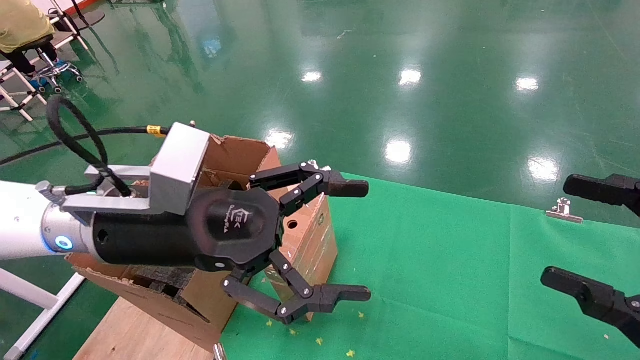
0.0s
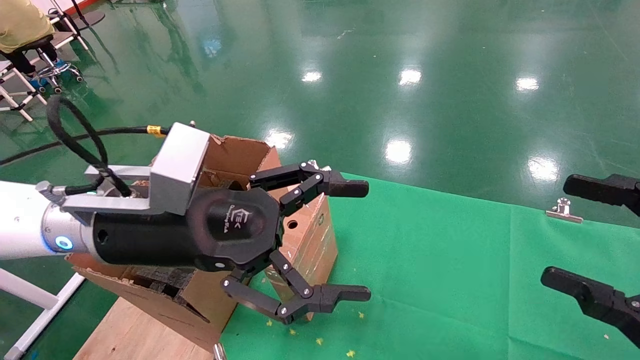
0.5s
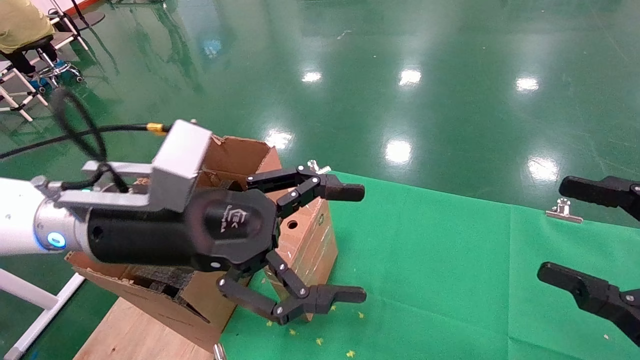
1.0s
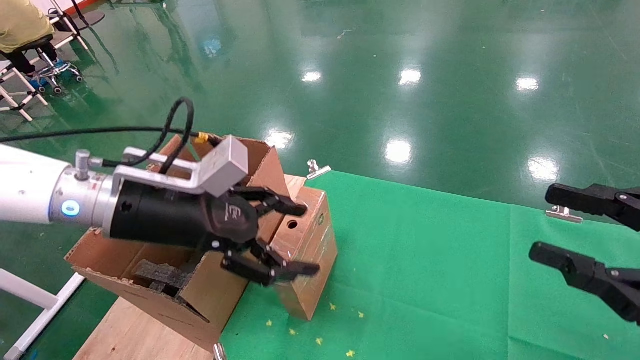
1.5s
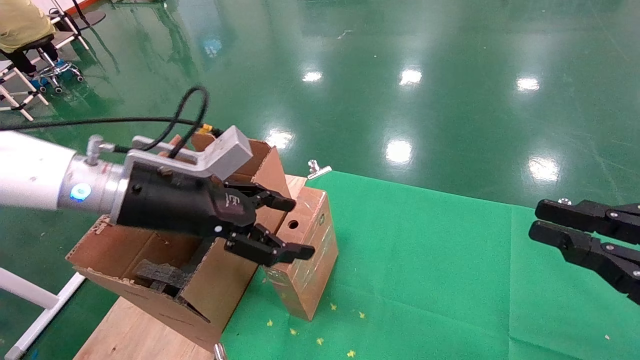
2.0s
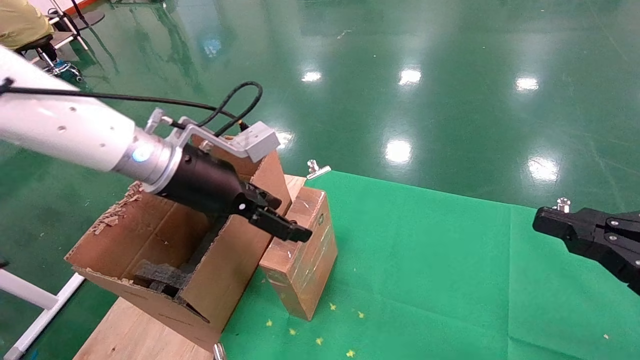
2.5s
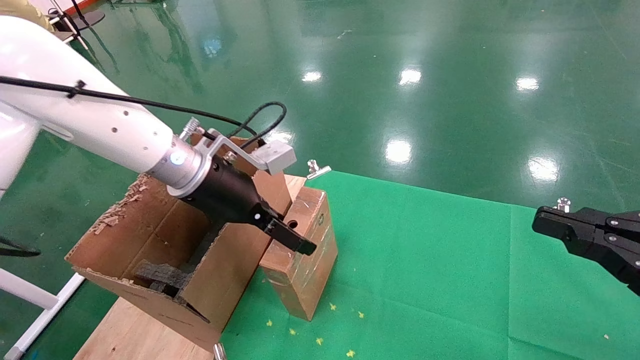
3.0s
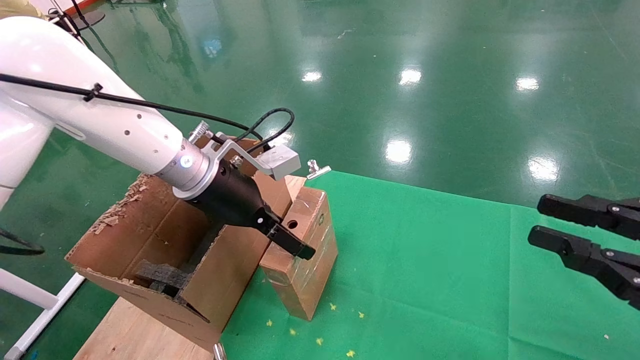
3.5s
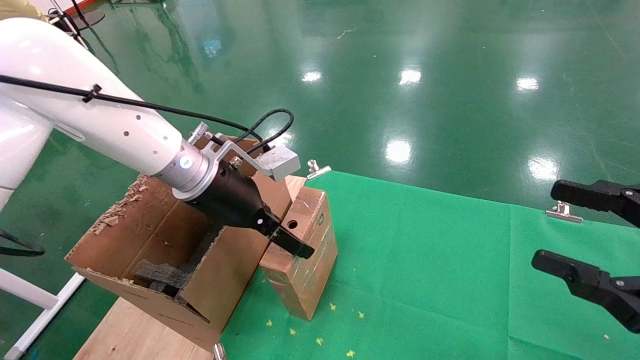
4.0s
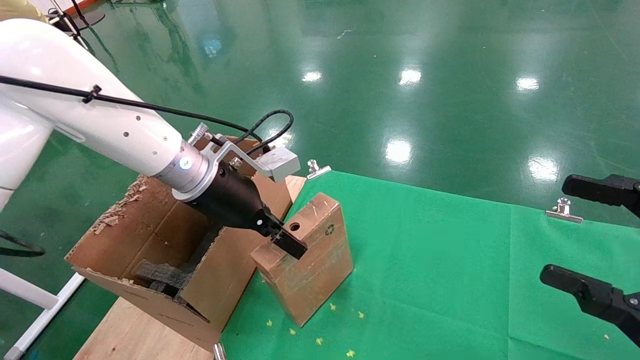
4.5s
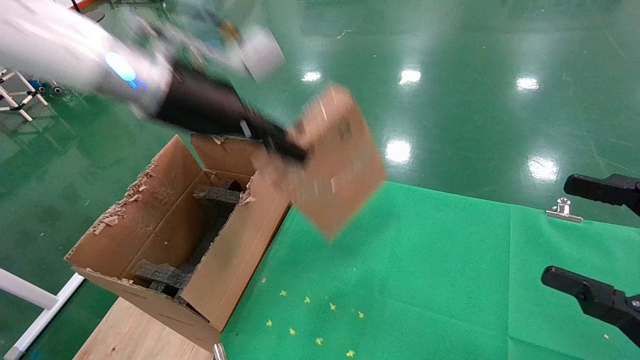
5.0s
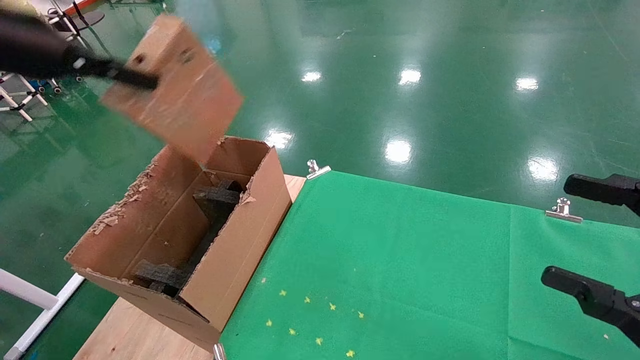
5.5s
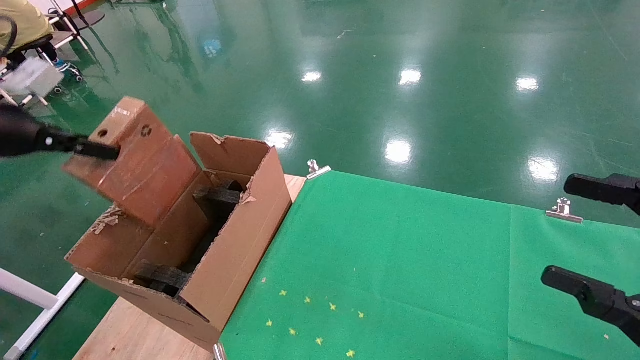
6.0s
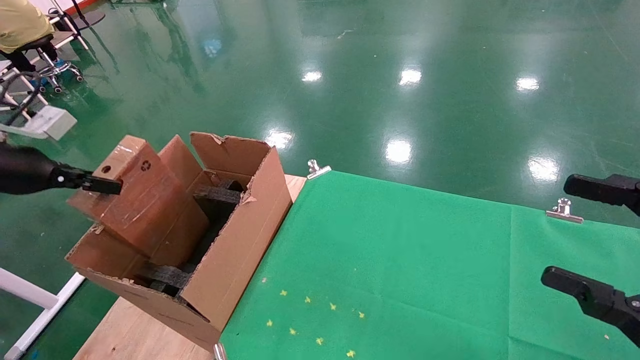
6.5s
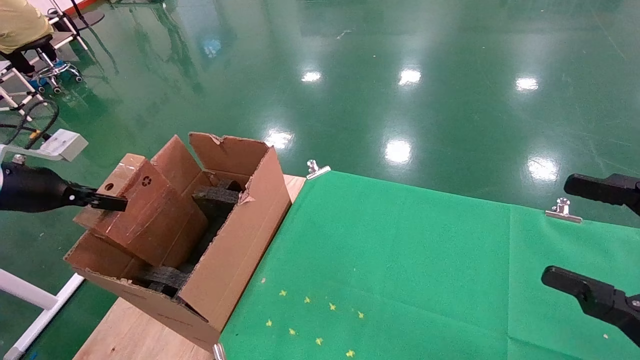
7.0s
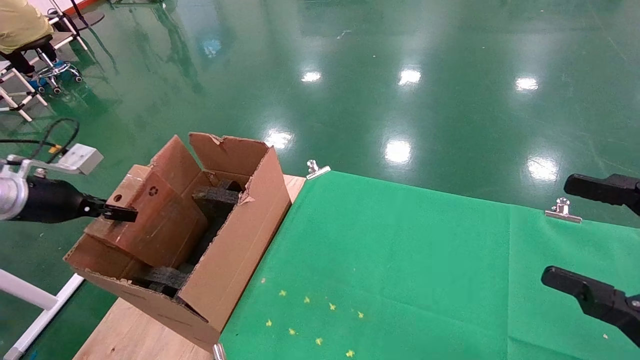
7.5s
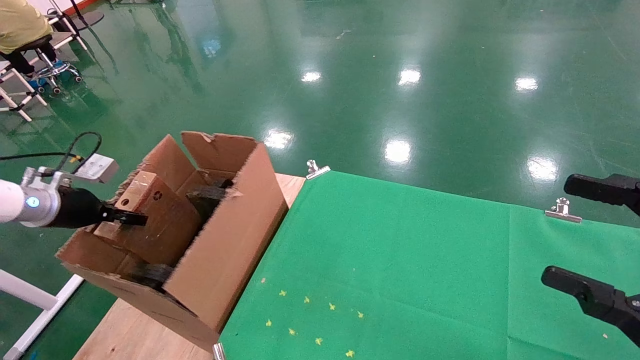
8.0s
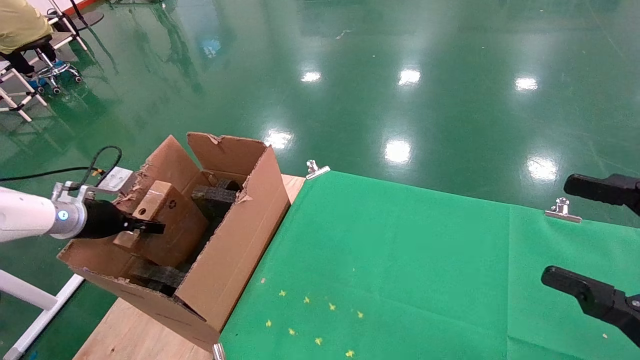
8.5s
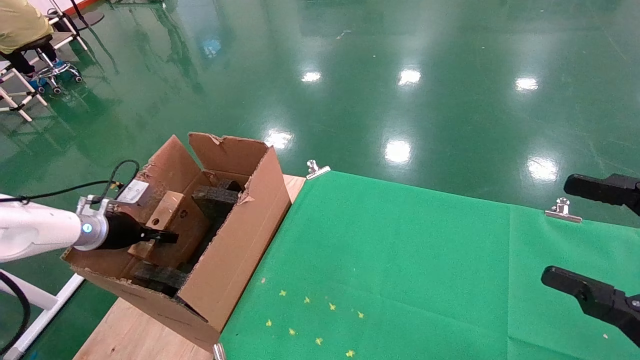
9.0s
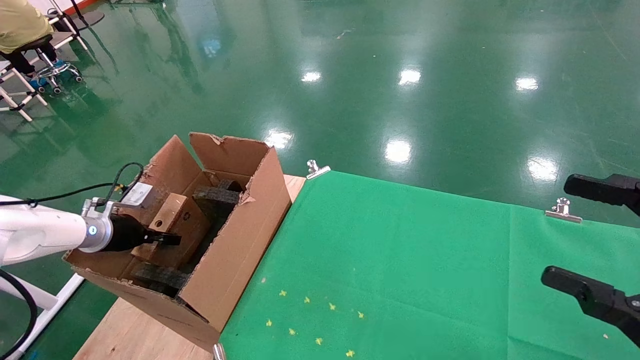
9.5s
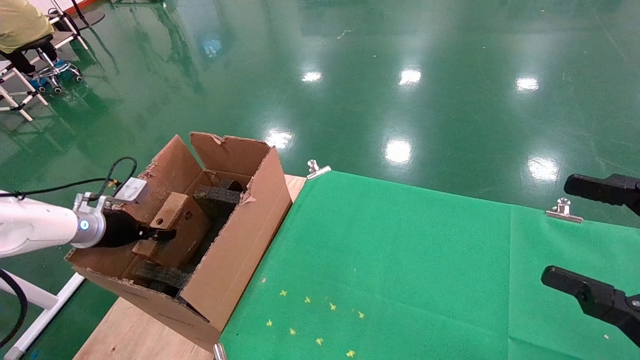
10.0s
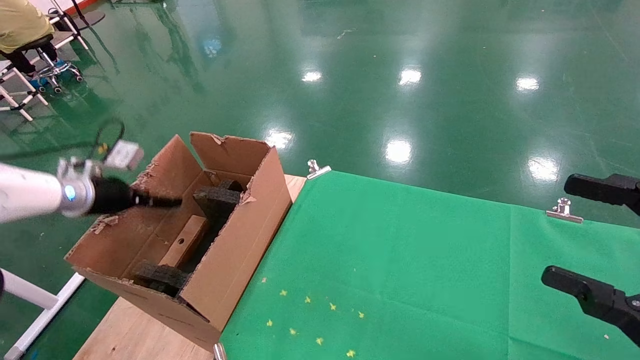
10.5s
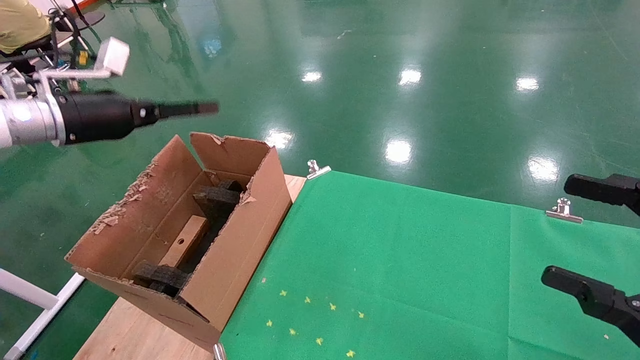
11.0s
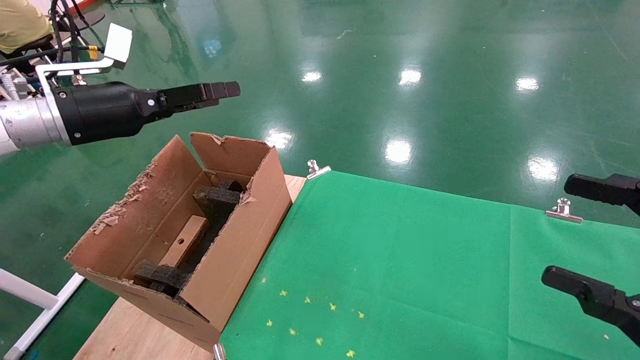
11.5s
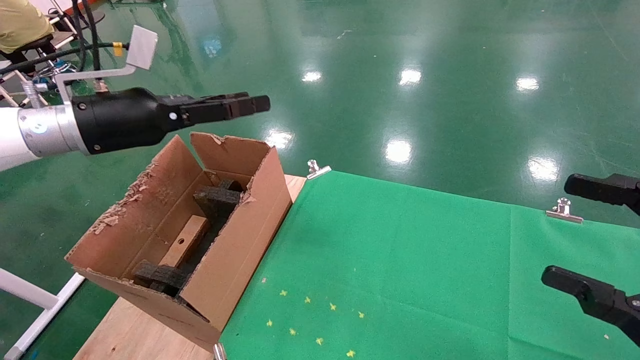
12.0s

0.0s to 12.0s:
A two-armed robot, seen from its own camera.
Task of the whole recording: using a robotic arm to pick up a cardboard box and palace it the carton.
Step, 1.5s to 4.0s: Pick up the mouse and the power cord paper box.
Step, 4.5s to 10.5s: Place the mouse and the power cord paper box into the container.
0.0s to 2.0s: The right gripper closes up, while the left gripper moves forward, approximately 5 cm.
2.0s to 4.0s: The left gripper moves forward, roughly 5 cm.
4.0s to 6.0s: The left gripper is displaced to the left by some 30 cm, and closes its fingers, while the right gripper opens.
6.0s to 8.0s: The left gripper moves downward and forward, about 20 cm.
8.0s to 10.0s: The left gripper heads downward, covering about 5 cm.
10.0s to 12.0s: The left gripper travels upward and to the right by about 25 cm, and opens up.

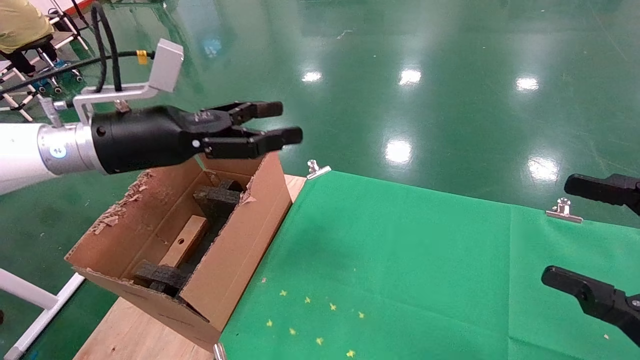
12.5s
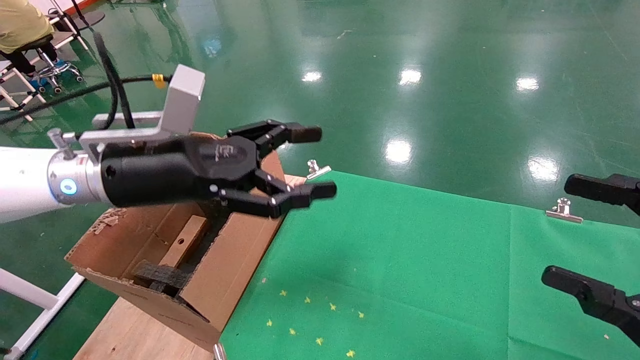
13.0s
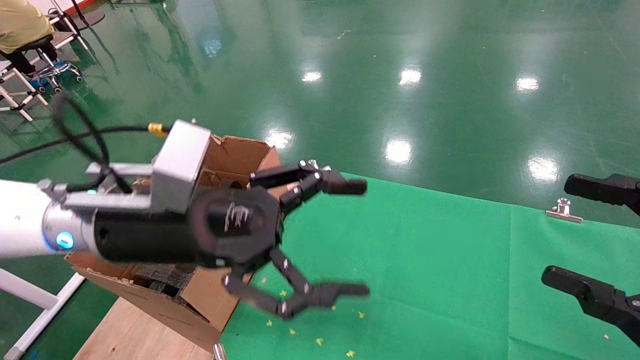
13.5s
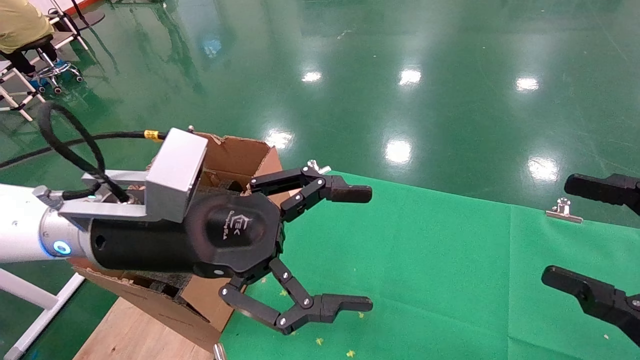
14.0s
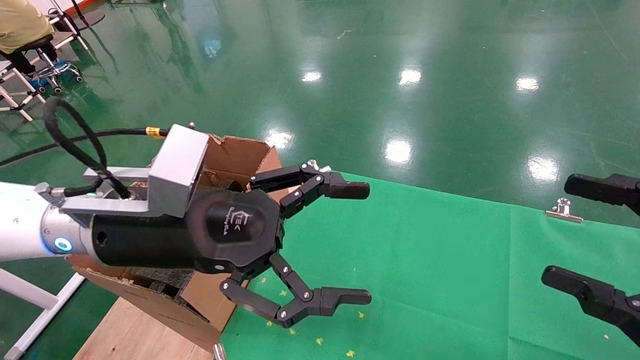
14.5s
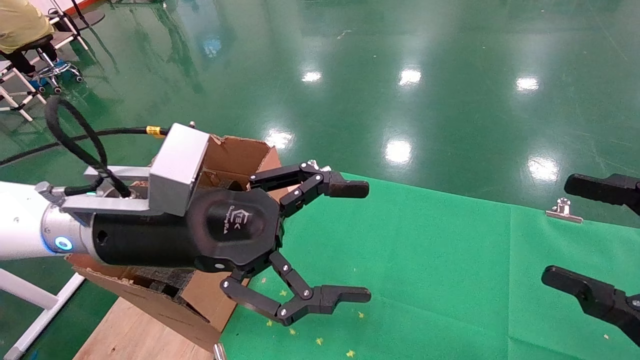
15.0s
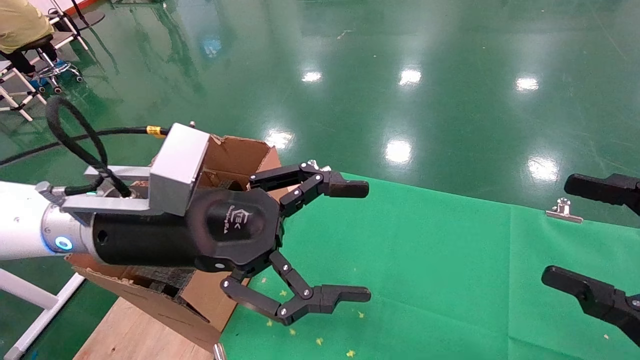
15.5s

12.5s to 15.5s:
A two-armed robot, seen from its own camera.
Task of the whole recording: using a robotic arm to pick up a cardboard box and palace it the carton.
12.5s to 14.0s: The left gripper goes roughly 15 cm to the right and backward.
14.0s to 15.5s: Neither gripper changes place.
